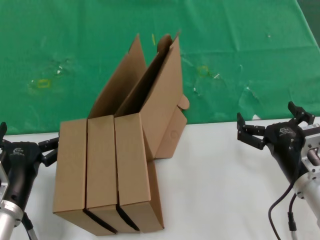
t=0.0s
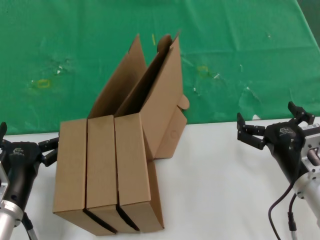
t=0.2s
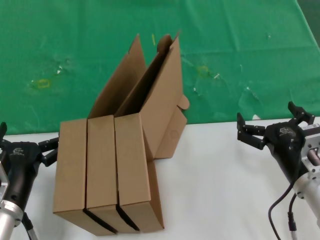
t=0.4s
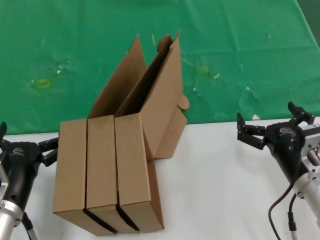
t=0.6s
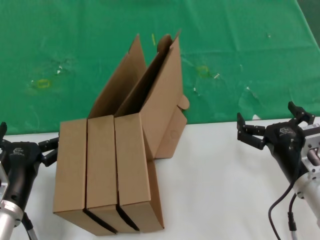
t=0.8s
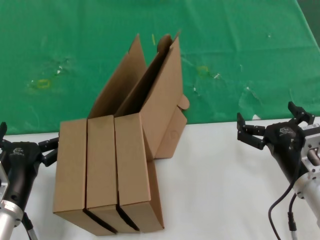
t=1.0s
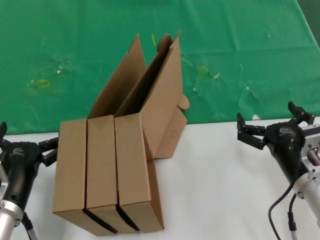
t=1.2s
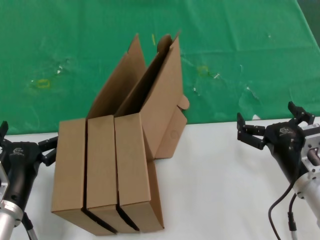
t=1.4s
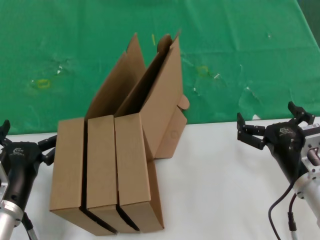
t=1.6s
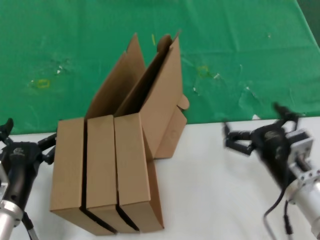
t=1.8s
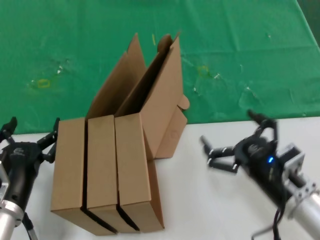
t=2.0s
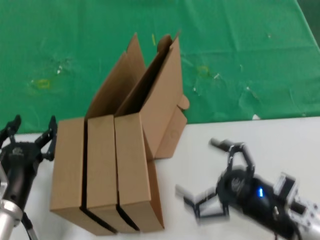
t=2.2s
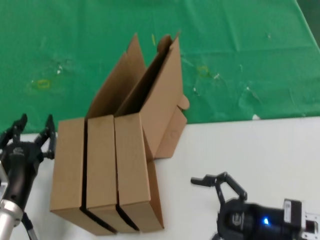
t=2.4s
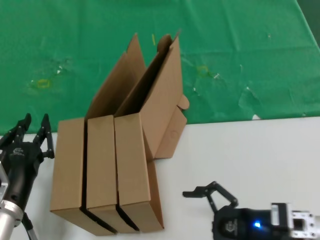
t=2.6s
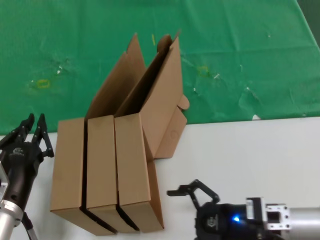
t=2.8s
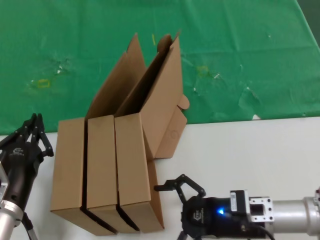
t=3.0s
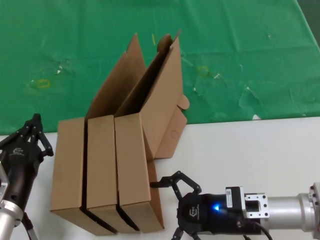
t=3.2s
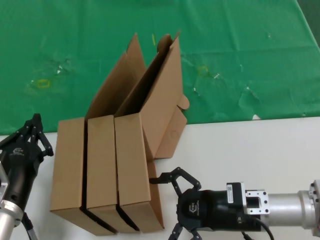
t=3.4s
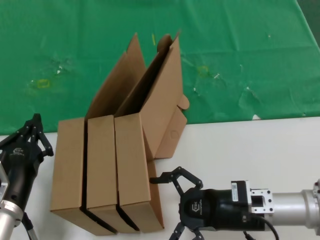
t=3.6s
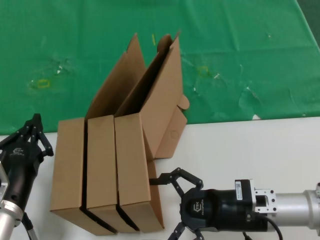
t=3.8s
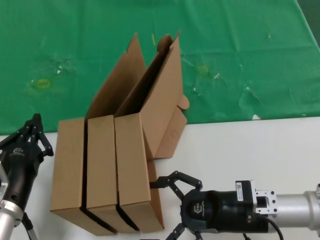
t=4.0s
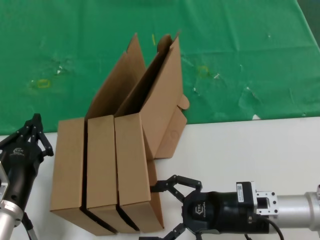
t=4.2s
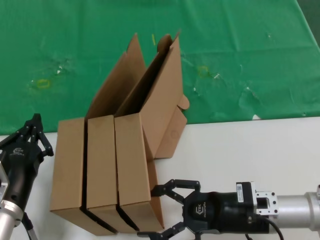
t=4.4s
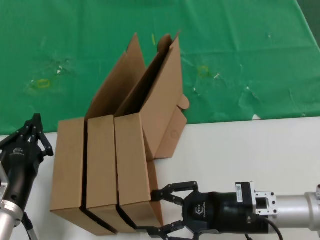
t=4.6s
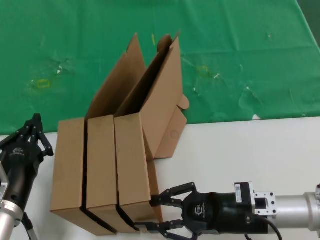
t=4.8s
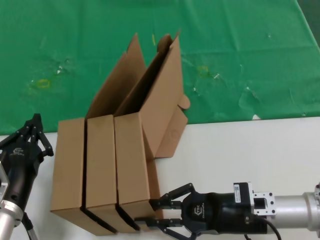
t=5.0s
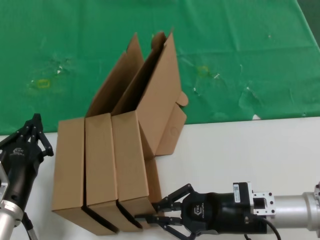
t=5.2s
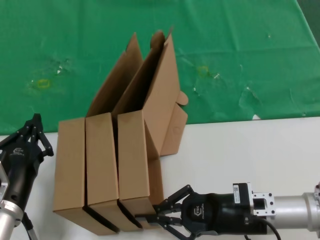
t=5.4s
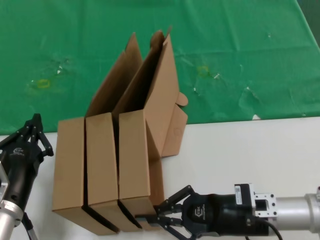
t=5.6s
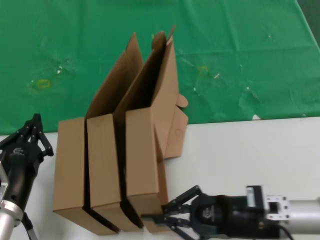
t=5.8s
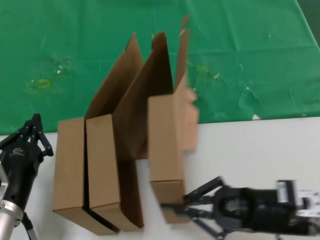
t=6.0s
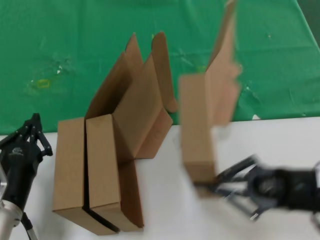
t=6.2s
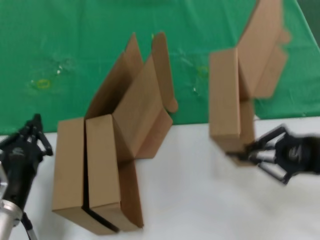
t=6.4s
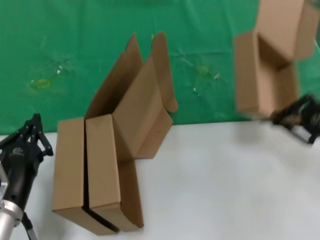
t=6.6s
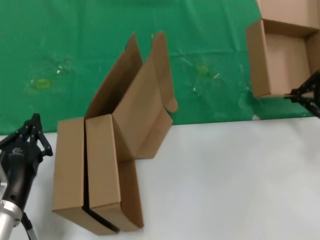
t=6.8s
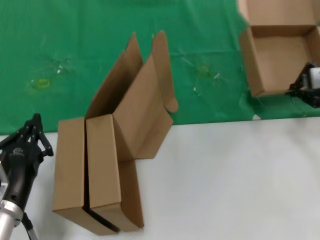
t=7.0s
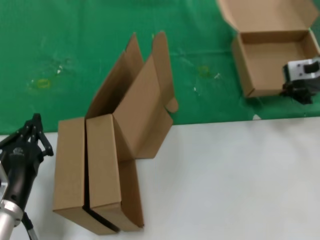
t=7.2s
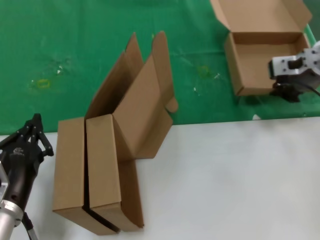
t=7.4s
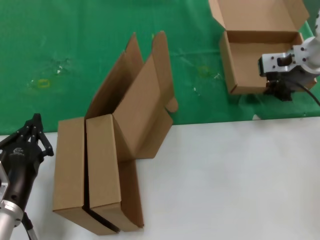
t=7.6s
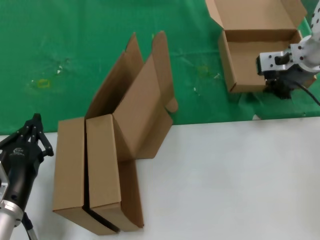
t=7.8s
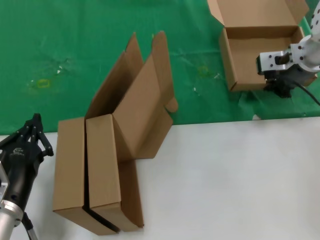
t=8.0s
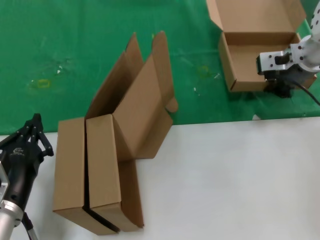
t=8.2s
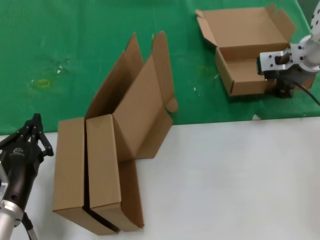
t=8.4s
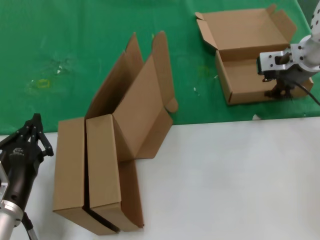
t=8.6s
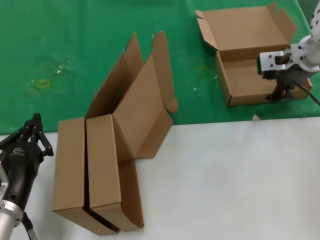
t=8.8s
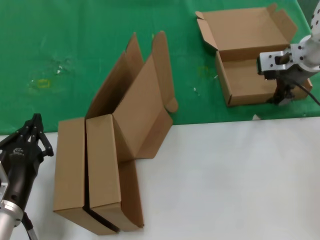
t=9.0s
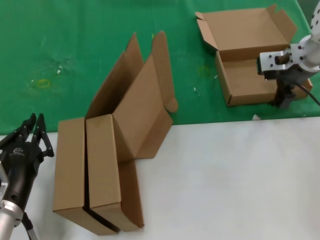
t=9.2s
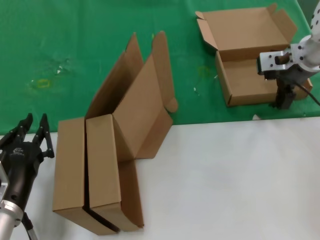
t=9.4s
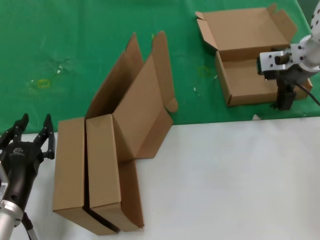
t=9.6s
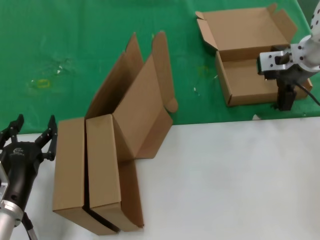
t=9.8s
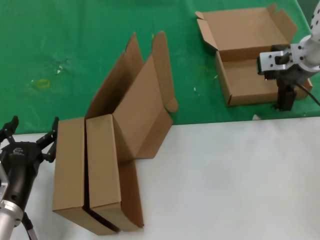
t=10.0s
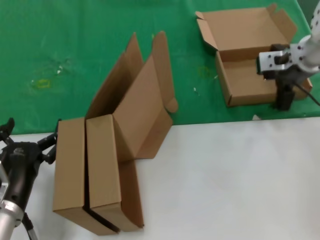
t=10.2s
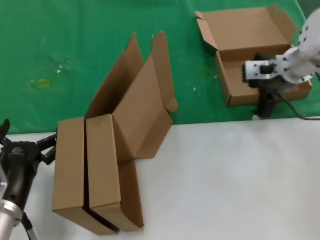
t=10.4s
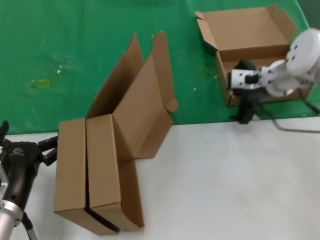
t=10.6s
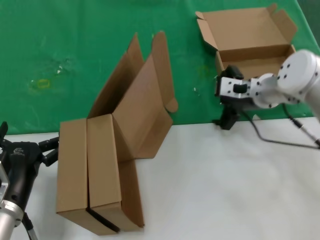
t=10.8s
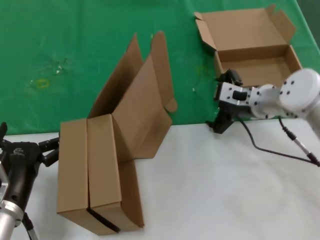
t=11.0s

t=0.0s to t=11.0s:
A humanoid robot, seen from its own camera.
Task of the whole recording: pick up the paper box and put it at the back.
Step, t=0.0s to t=5.2s: Grasp the paper box.
Step, t=5.4s to t=8.6s: Place the paper box on the table.
t=0.0s to t=1.6s: Neither hand changes place.
t=1.6s to t=3.2s: The right hand ends up some 5 cm from where it was.
t=3.2s to t=4.8s: Both hands stay about where they are.
t=4.8s to t=6.2s: The right hand goes some 10 cm to the right and upward.
t=6.2s to t=7.8s: The right hand shifts about 30 cm forward and upward.
t=7.8s to t=9.4s: Neither hand changes place.
t=9.4s to t=11.0s: The right hand is displaced downward and to the left by about 15 cm.

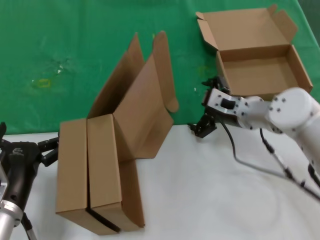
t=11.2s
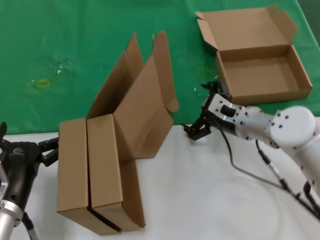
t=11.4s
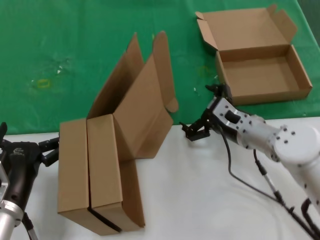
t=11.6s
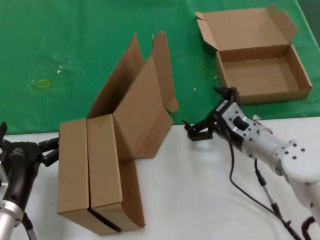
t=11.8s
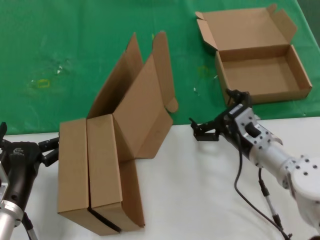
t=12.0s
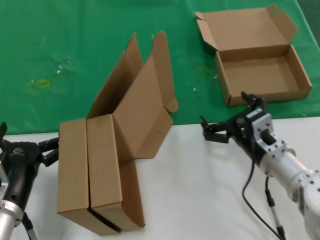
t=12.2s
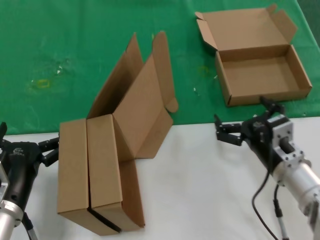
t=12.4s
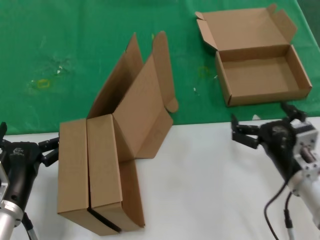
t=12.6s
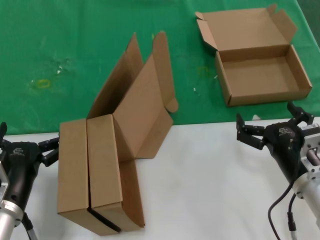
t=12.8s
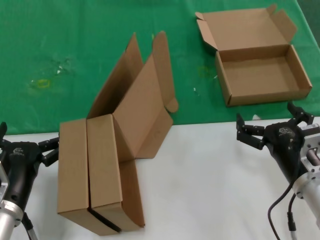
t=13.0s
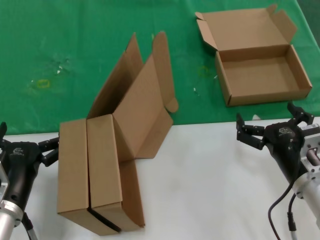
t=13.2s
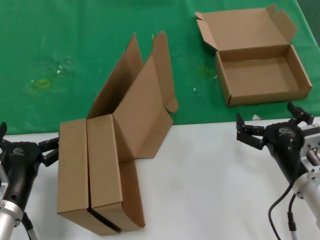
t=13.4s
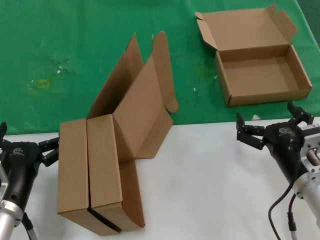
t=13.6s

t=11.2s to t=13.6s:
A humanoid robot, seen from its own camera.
Task of the whole recording: pick up the paper box and put it at the back.
t=11.2s to t=12.4s: The right hand is displaced backward and downward by approximately 15 cm.
t=12.4s to t=13.6s: The right hand moves approximately 5 cm.
